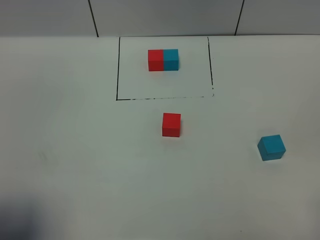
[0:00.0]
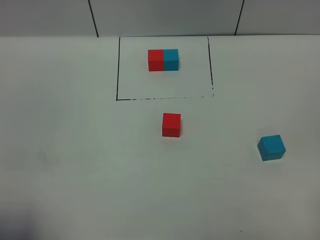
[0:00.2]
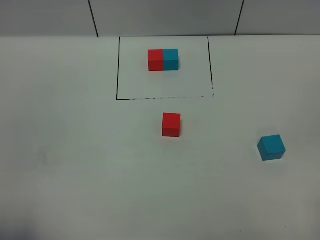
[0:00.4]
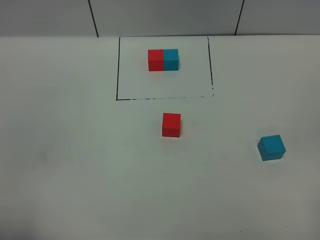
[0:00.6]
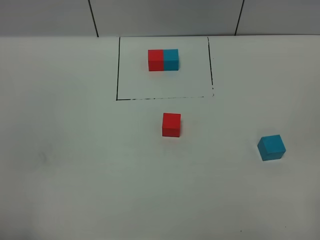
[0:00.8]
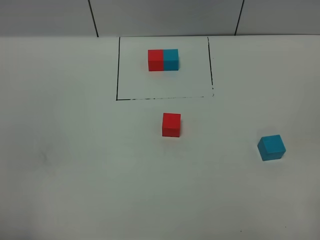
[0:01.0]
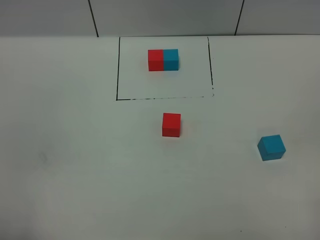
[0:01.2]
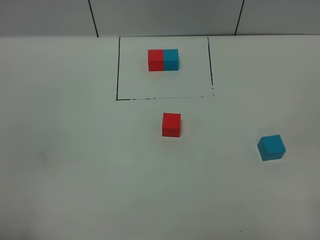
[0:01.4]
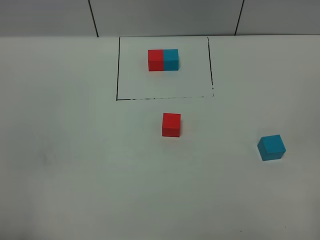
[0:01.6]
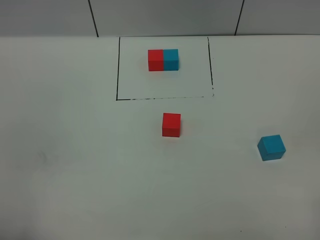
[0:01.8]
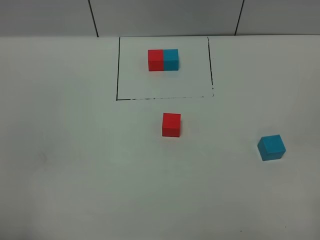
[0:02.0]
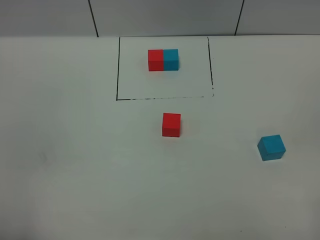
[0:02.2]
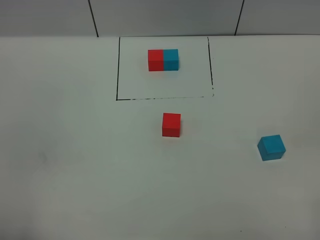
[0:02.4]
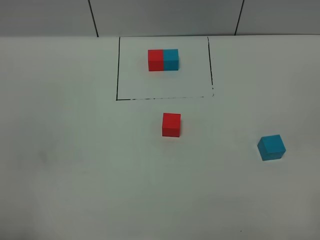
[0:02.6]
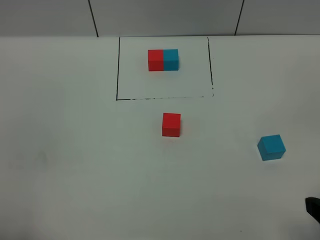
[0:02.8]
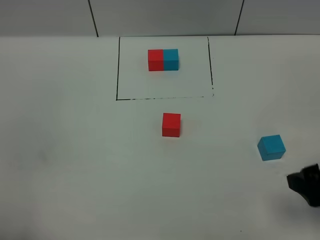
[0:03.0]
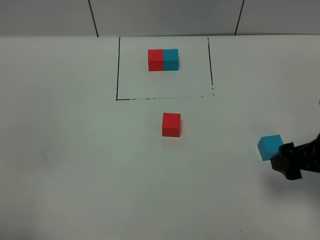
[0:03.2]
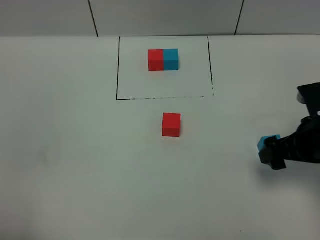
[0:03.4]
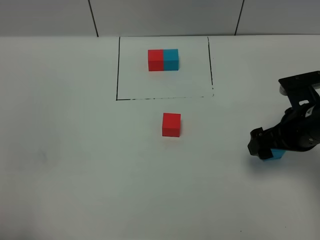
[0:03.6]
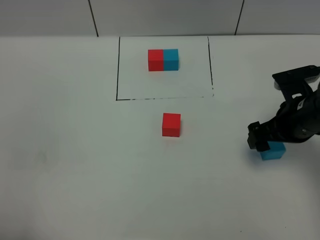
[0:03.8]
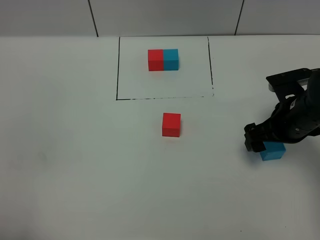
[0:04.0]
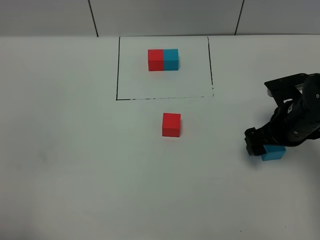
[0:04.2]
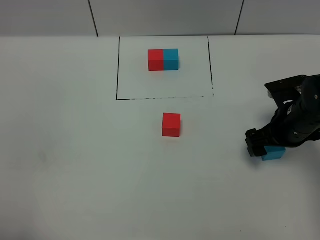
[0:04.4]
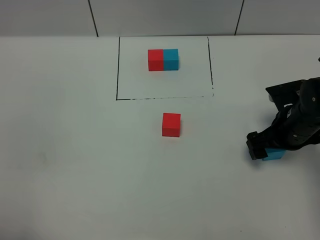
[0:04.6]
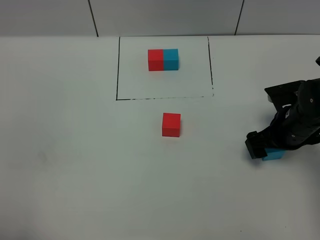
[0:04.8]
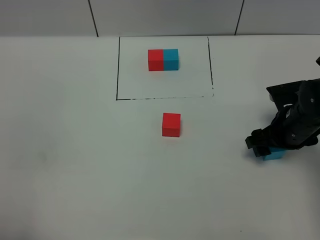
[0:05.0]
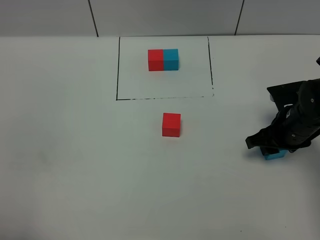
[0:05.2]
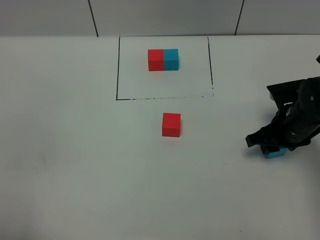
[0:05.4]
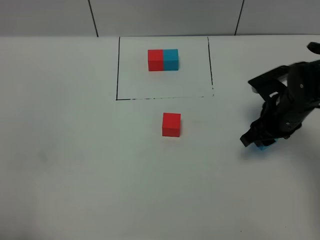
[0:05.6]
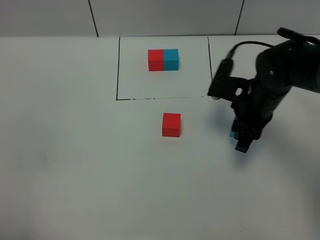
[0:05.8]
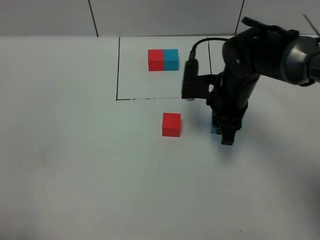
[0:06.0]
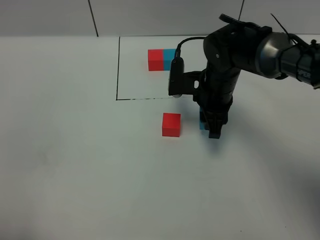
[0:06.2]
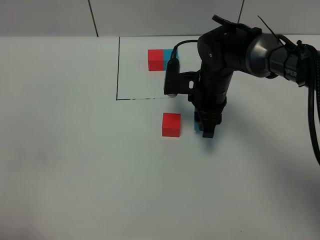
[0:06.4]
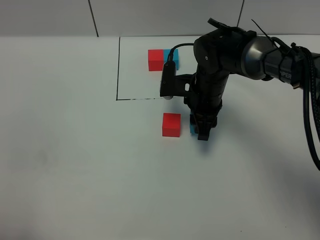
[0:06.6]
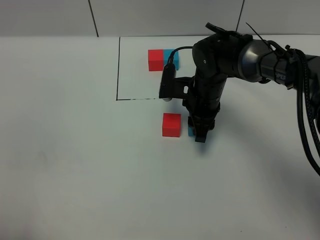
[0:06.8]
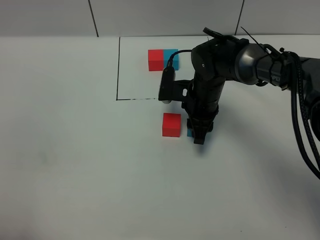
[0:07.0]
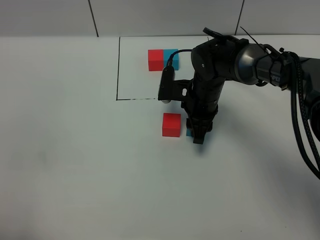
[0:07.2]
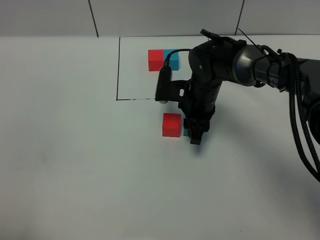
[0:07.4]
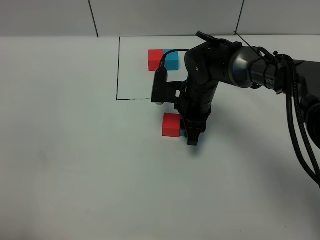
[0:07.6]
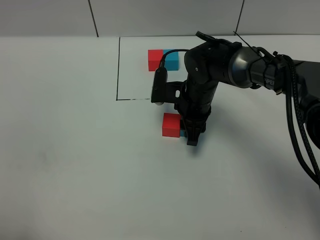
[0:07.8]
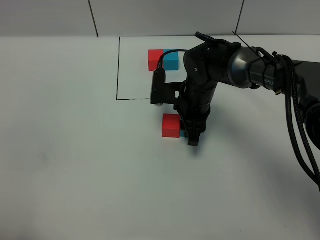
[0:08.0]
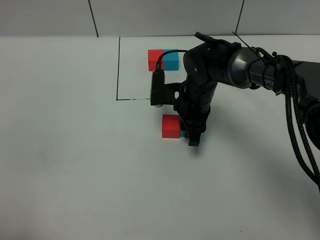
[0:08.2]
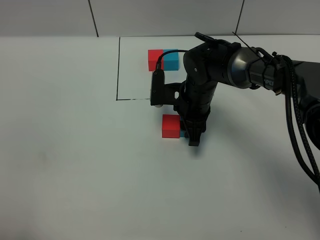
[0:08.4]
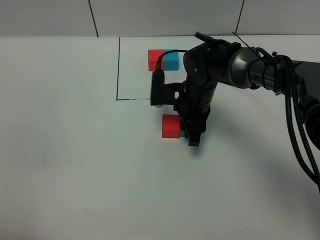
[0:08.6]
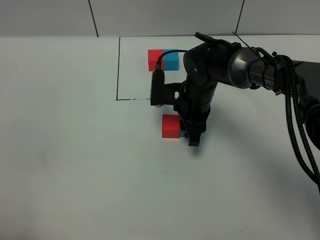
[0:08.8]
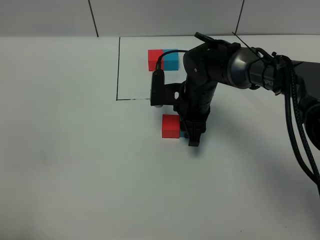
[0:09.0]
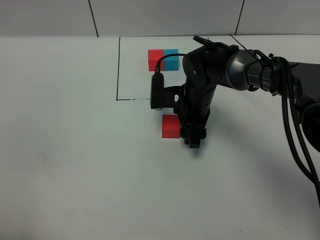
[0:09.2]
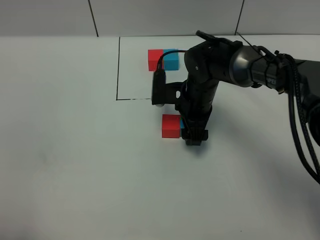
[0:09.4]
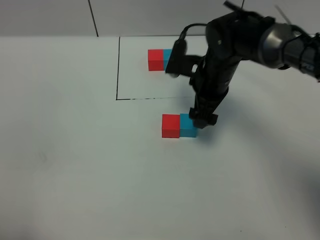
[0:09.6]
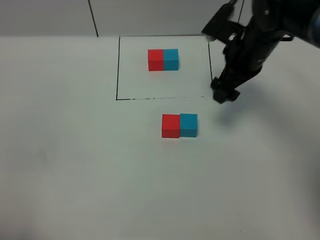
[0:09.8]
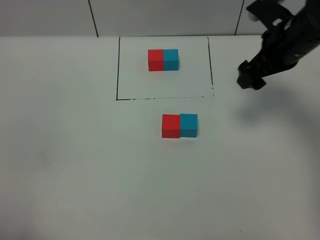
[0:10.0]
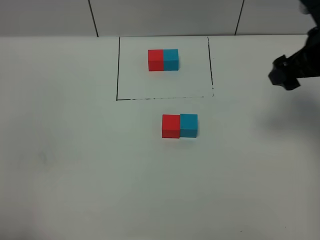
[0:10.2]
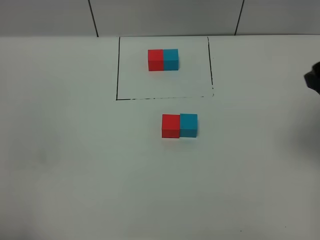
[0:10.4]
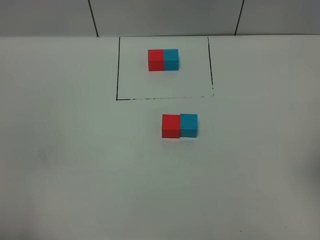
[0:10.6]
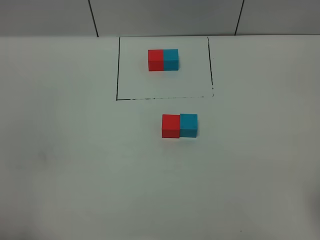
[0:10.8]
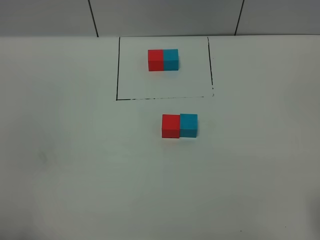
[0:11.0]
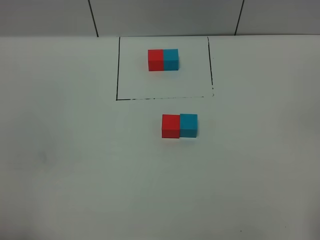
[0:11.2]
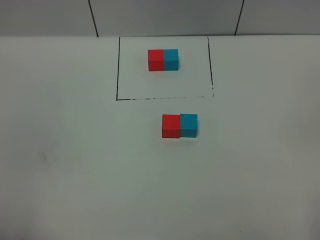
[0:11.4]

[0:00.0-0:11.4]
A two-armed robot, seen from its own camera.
Task of the whole recording: According to the building block template in front, assemble the scattered blocks together.
Step, 0:00.0 to 0:09.4: Put the blue cube on the right of the red cube.
0:00.0 to 0:01.4: The left gripper heads backward and downward, covering some 10 cm.
0:01.4 to 0:02.8: The right gripper travels forward by some 10 cm, and opens up.
0:02.8 to 0:04.2: The right gripper travels forward and downward by about 25 cm.
0:04.2 to 0:05.6: The right gripper closes its fingers.
0:05.6 to 0:07.2: The right gripper travels to the left and forward by some 15 cm.
0:07.2 to 0:08.6: The grippers stay close to where they were, moving slightly.
0:08.6 to 0:10.0: The right gripper is displaced to the right and upward by approximately 20 cm, and opens.
0:10.0 to 0:11.4: The right gripper heads backward, covering some 35 cm.

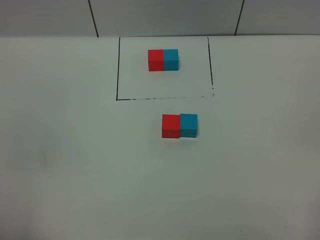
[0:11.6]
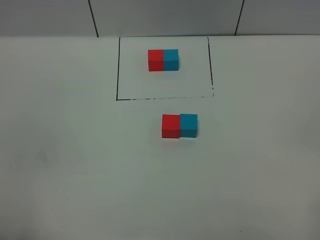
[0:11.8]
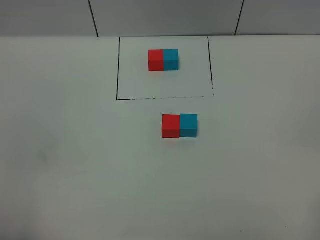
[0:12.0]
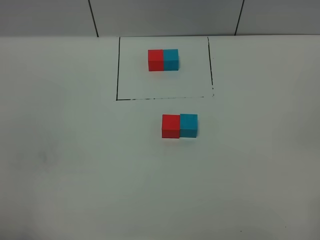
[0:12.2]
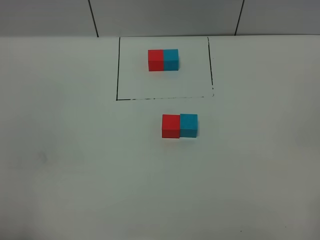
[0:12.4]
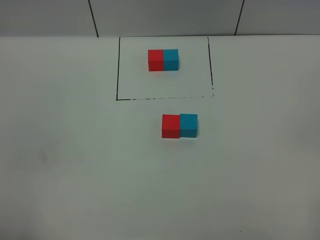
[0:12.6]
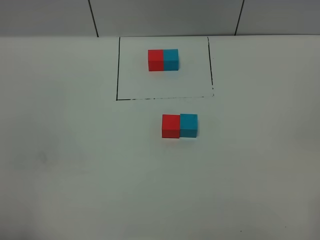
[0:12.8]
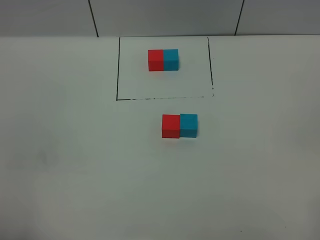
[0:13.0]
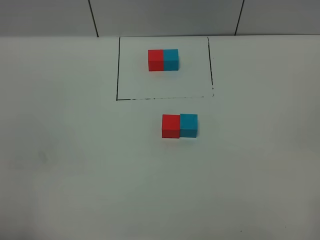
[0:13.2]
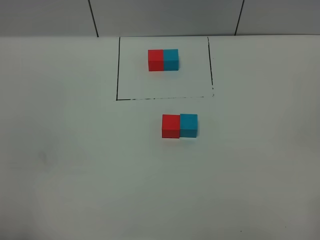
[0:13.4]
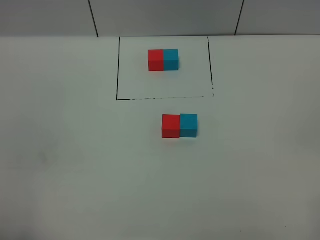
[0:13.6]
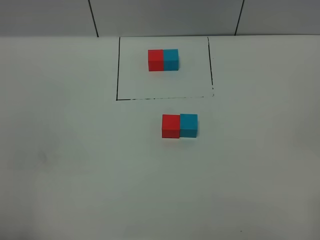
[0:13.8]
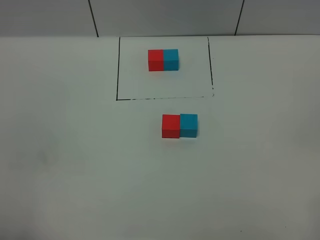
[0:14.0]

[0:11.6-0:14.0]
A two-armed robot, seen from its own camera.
Task of the whole recording: According to the building block template in front, assemble the scattered blocks together.
0:12.8 to 0:14.0: Both grippers stay about where they are.
